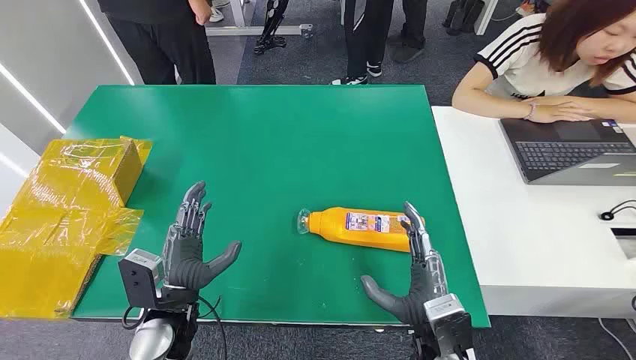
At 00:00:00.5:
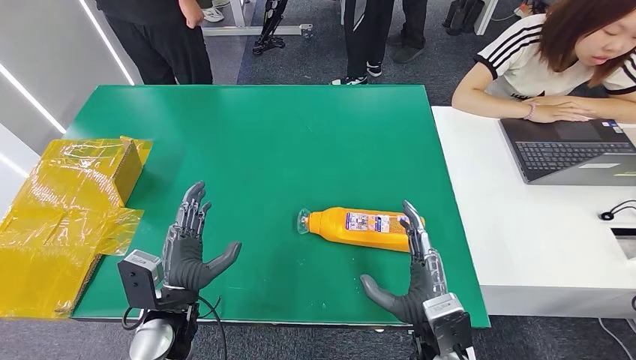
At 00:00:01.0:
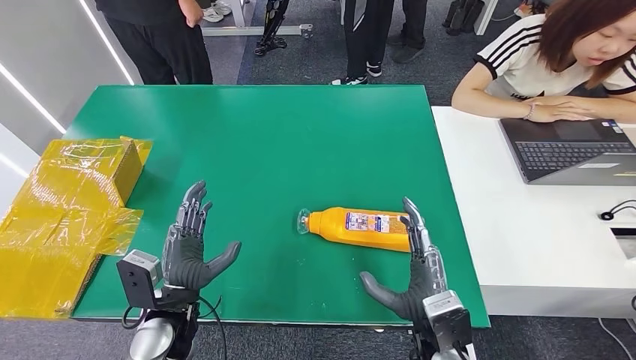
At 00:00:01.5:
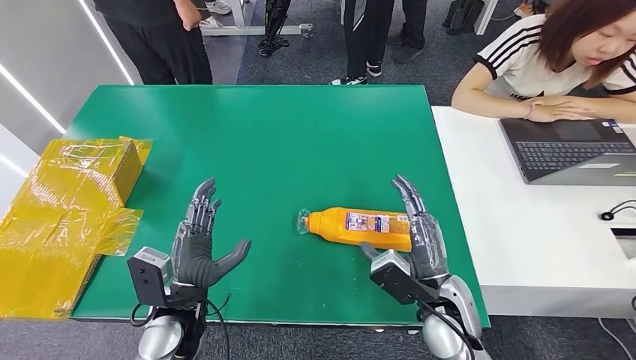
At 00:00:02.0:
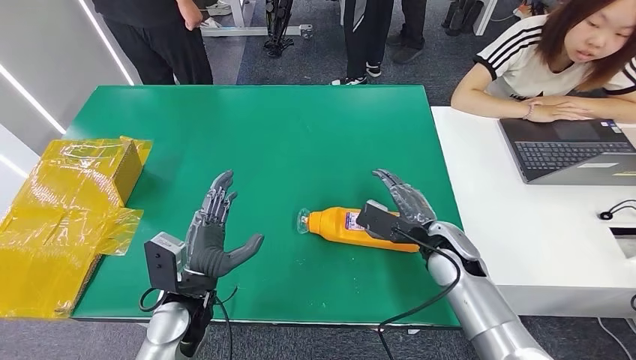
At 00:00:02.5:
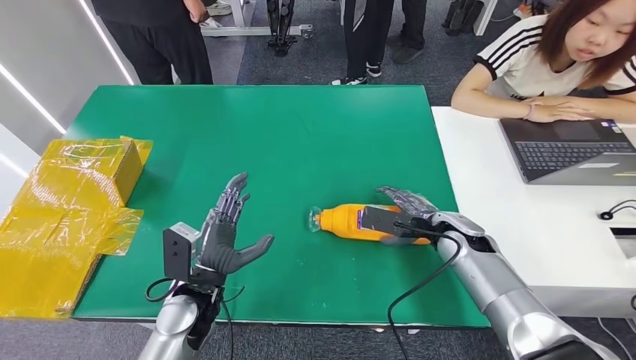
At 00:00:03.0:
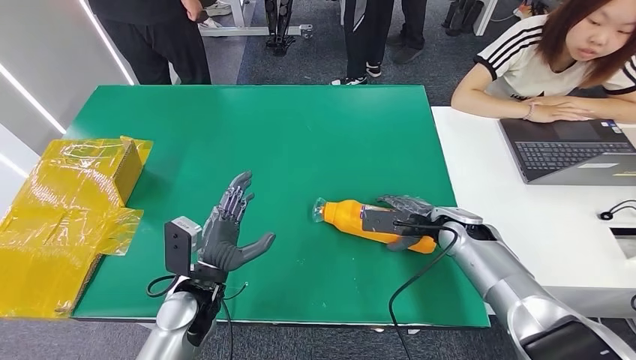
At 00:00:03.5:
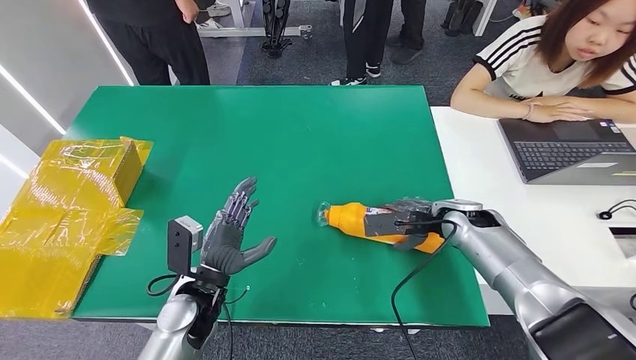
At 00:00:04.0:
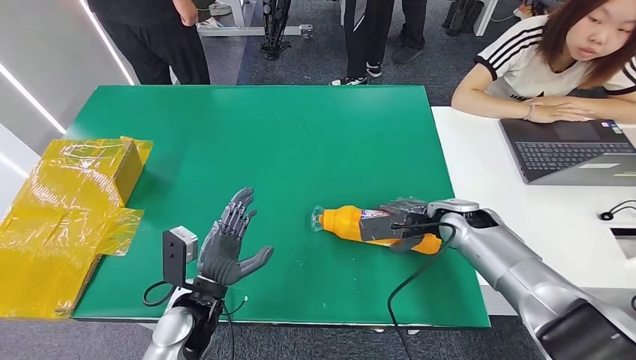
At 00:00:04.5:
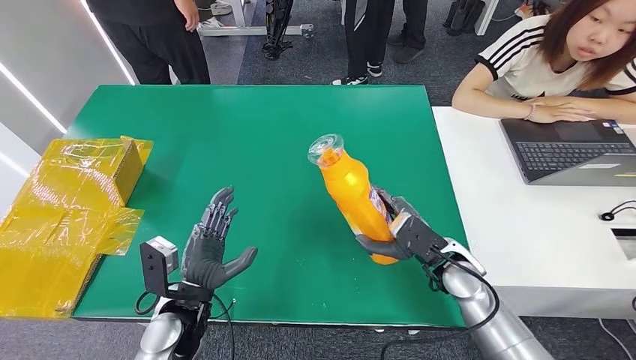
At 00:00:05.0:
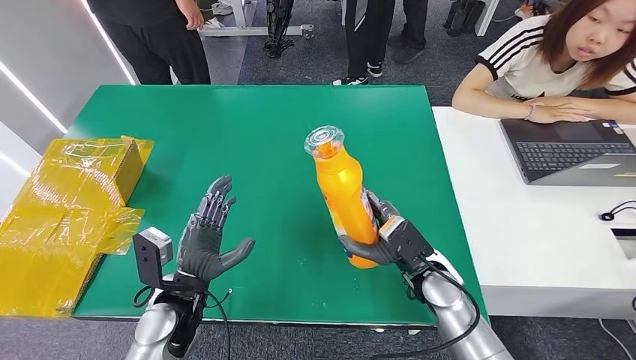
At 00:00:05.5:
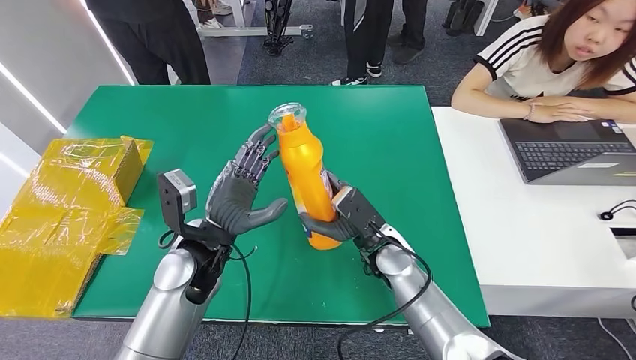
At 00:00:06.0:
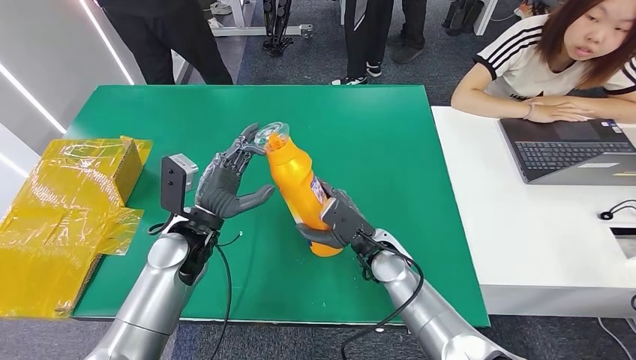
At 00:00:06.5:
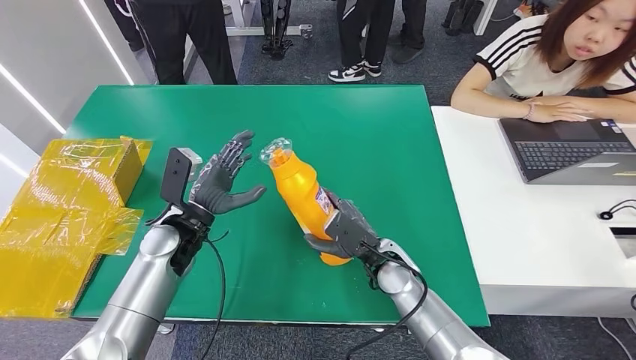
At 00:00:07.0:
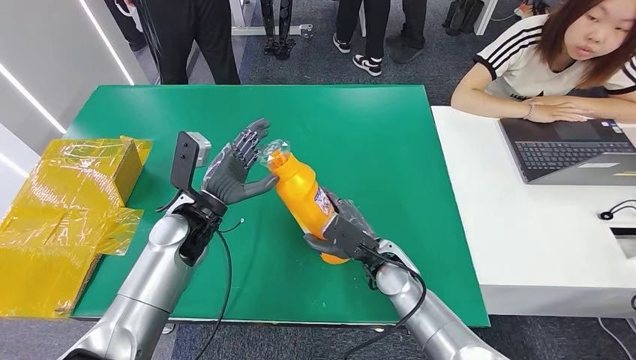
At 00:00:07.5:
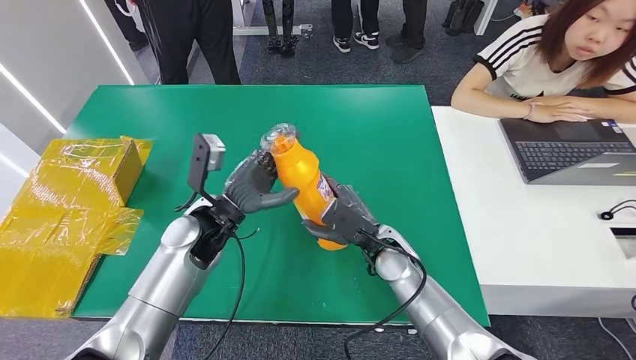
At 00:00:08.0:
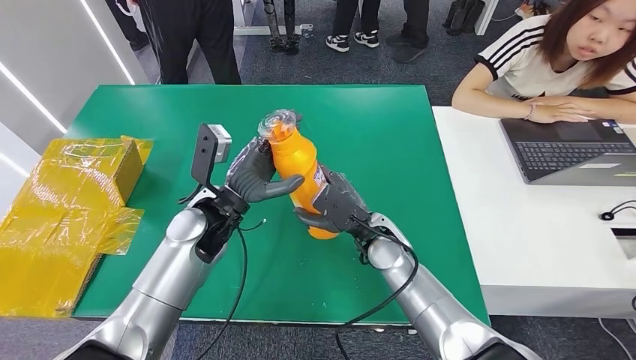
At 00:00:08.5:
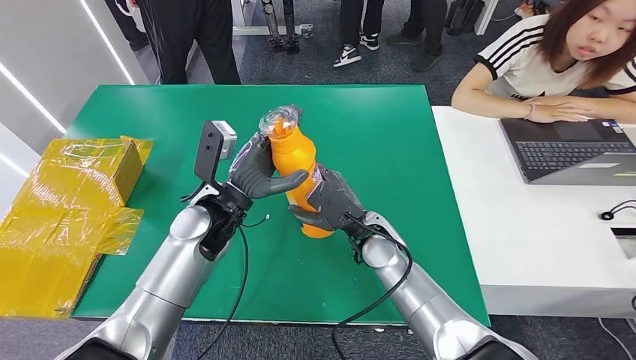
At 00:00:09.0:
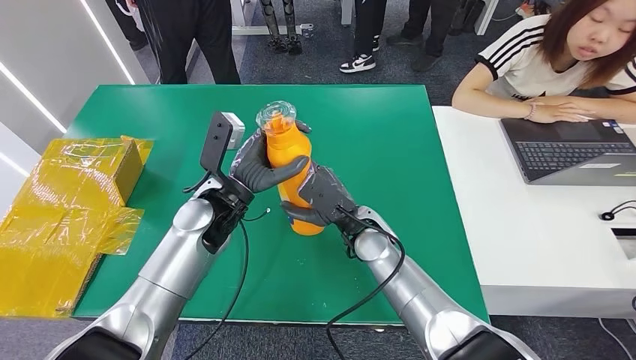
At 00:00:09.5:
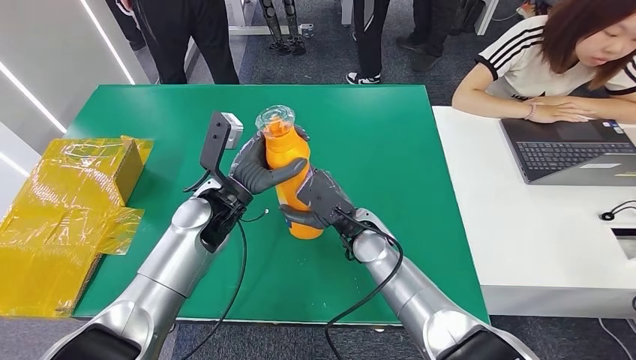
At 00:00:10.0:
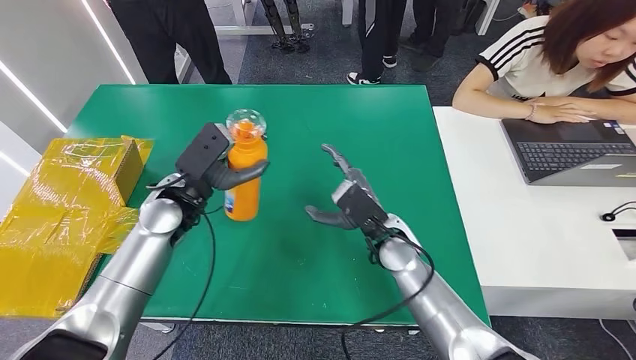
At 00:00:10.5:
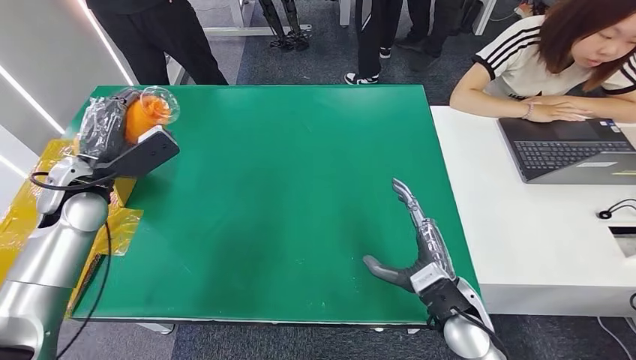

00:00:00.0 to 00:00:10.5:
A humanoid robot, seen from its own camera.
Step, 00:00:00.0 to 00:00:04.5: Pick up the bottle from the table.
00:00:02.0 to 00:00:04.0: The right hand shifts approximately 5 cm forward.
00:00:06.5 to 00:00:08.5: The right hand changes place by approximately 5 cm, while the left hand travels to the right and upward by about 10 cm.

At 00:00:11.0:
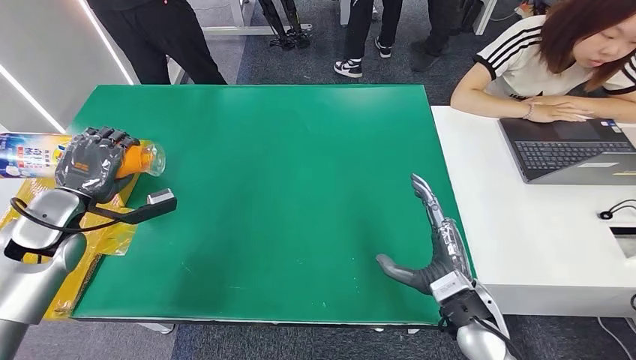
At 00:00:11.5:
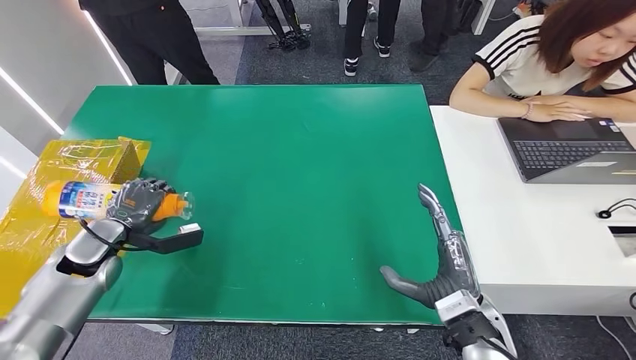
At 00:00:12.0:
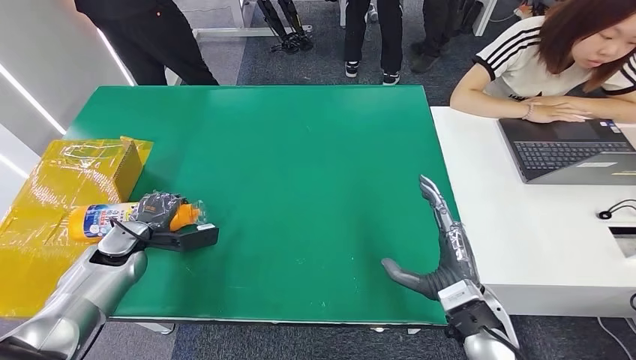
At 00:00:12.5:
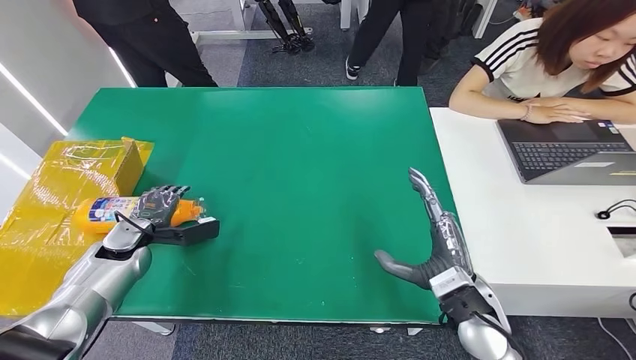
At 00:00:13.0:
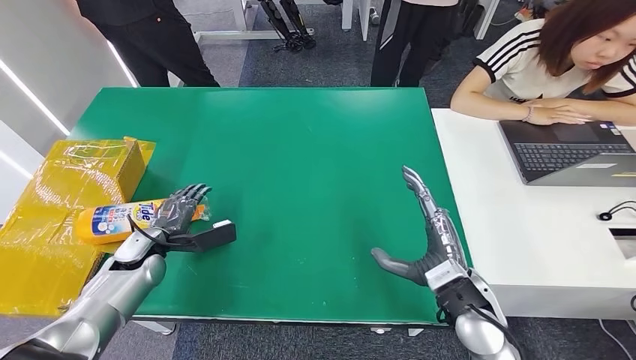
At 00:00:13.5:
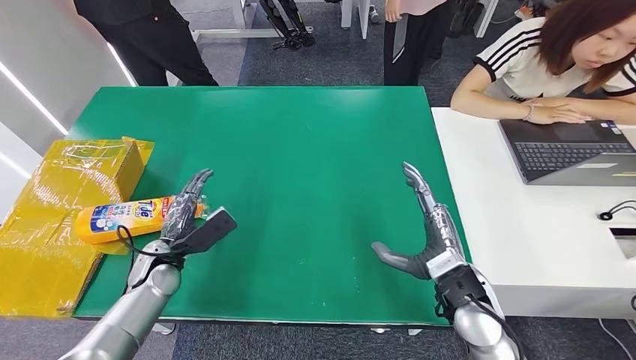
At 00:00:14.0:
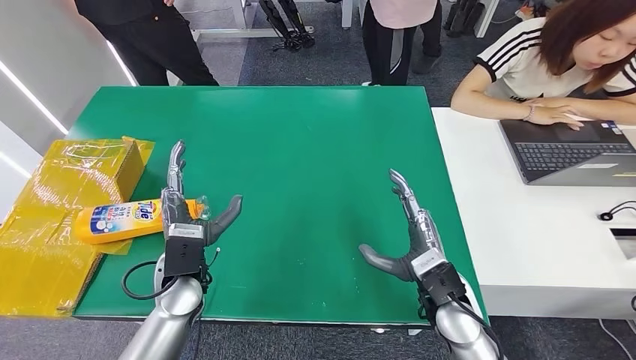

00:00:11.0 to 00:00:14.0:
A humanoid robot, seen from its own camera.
Step, 00:00:11.0 to 00:00:14.0: Turn the bottle to the front side.
